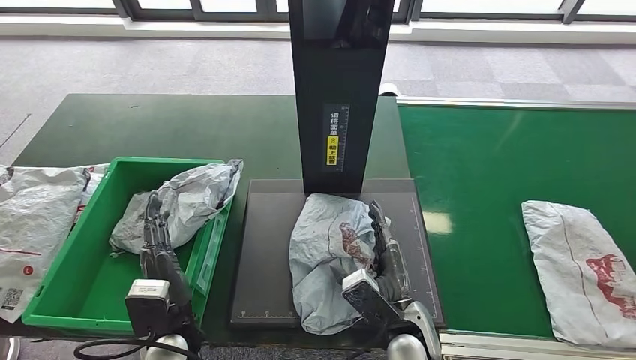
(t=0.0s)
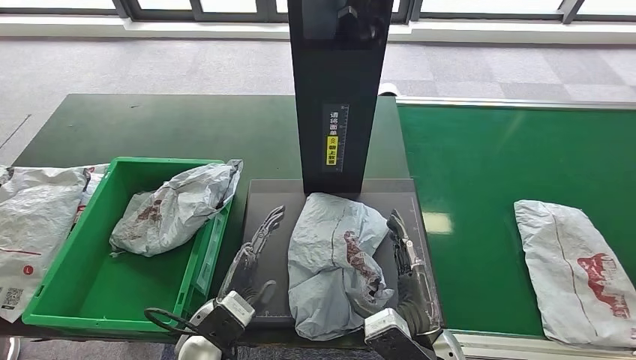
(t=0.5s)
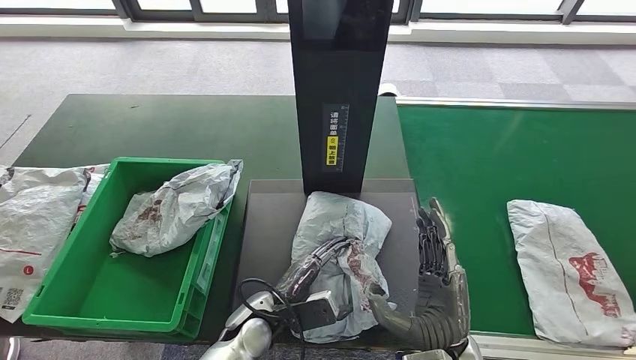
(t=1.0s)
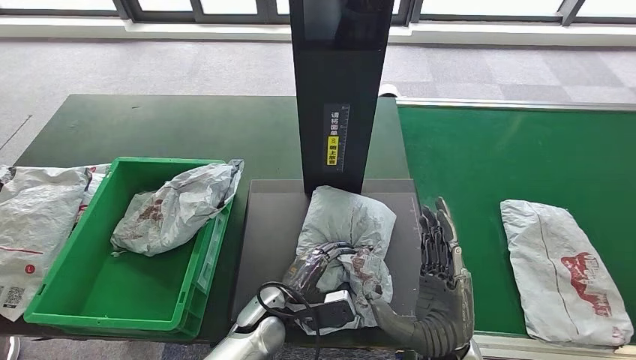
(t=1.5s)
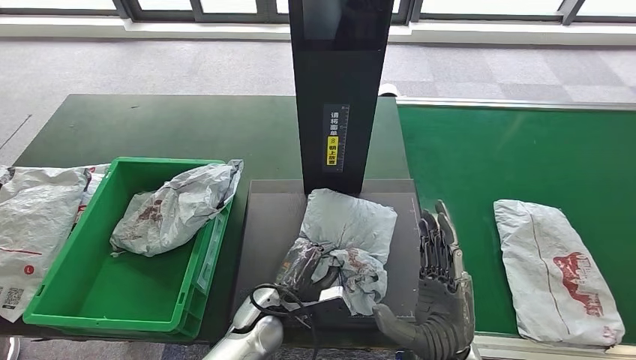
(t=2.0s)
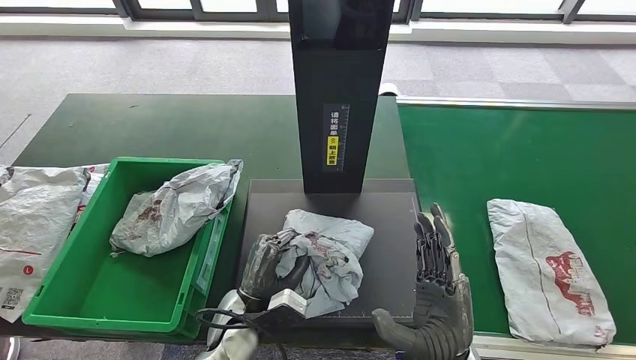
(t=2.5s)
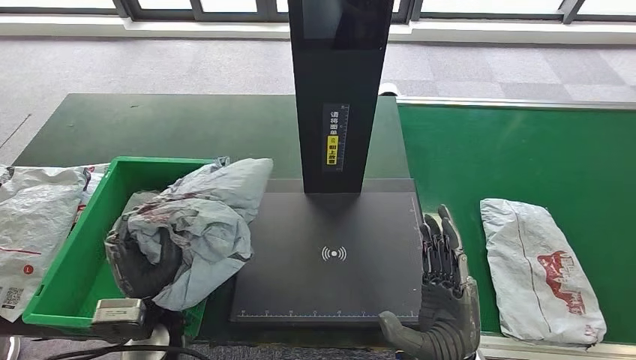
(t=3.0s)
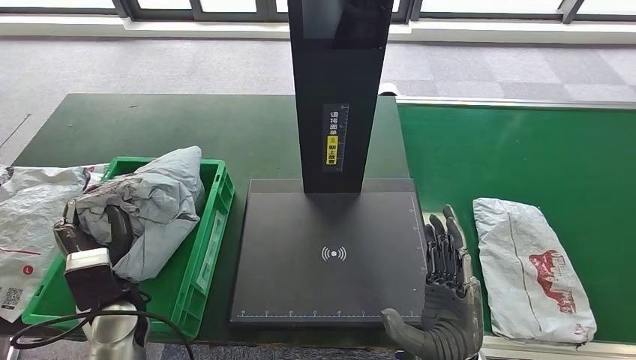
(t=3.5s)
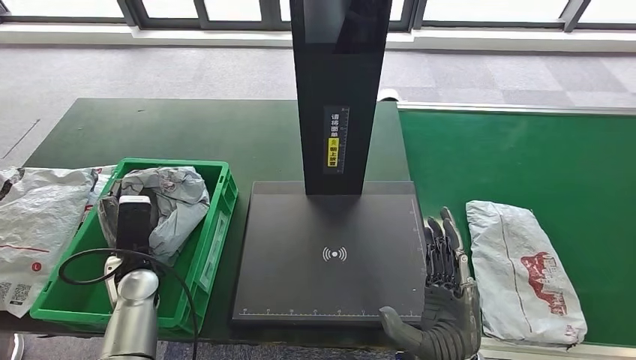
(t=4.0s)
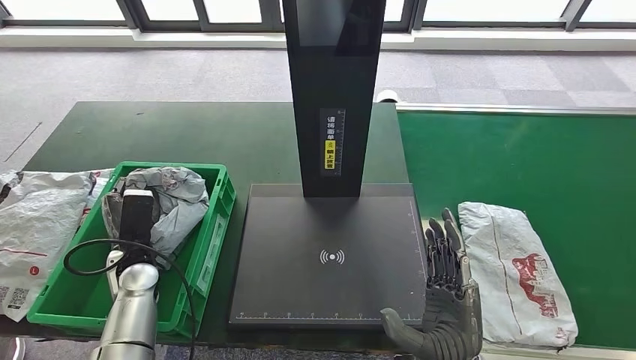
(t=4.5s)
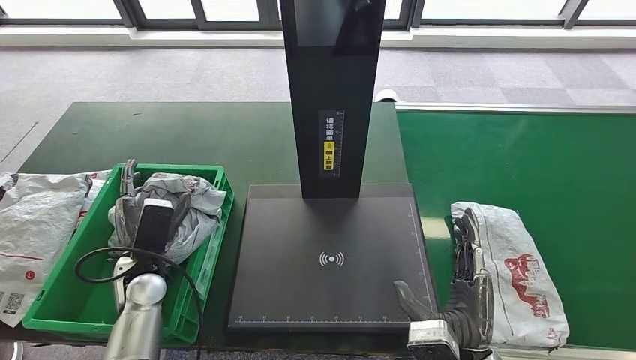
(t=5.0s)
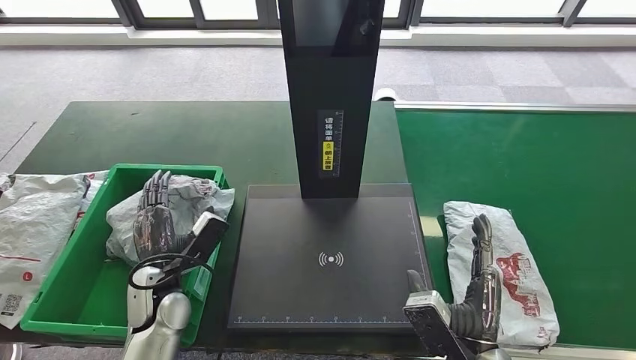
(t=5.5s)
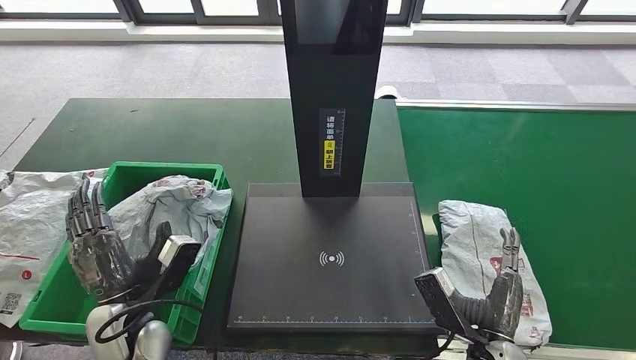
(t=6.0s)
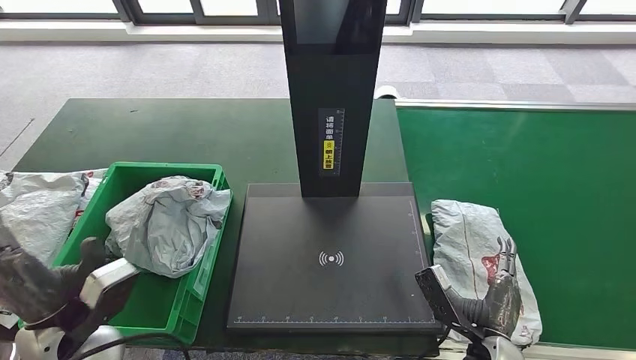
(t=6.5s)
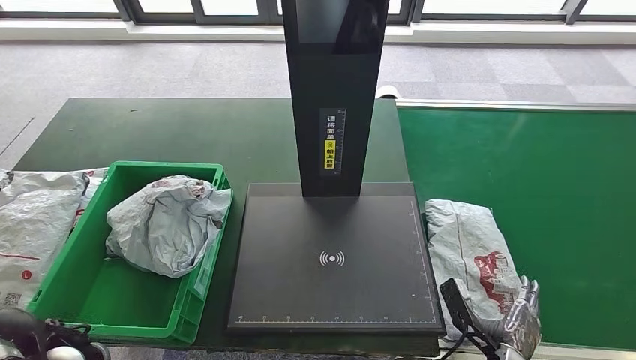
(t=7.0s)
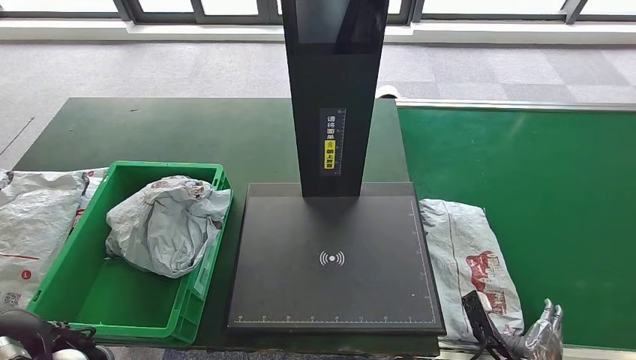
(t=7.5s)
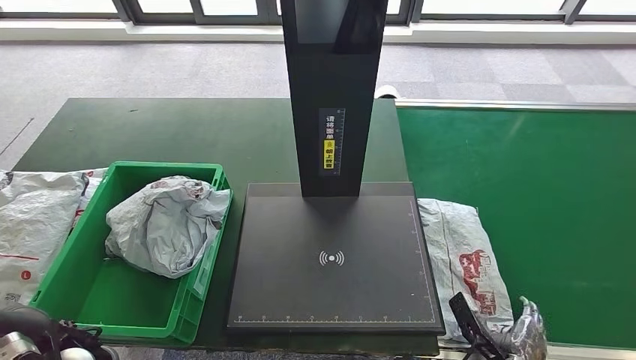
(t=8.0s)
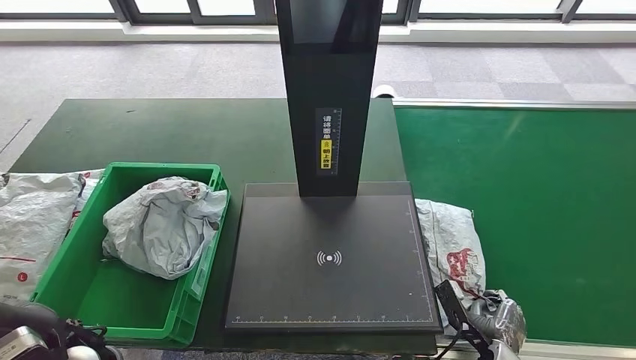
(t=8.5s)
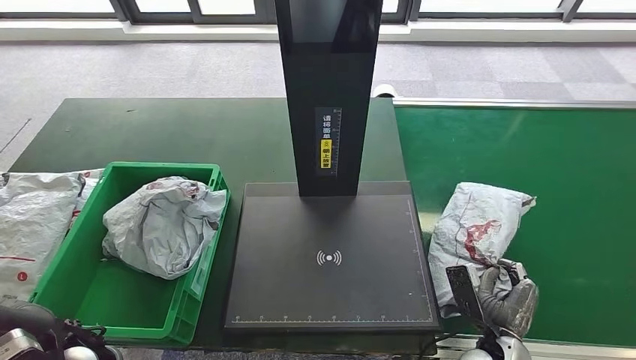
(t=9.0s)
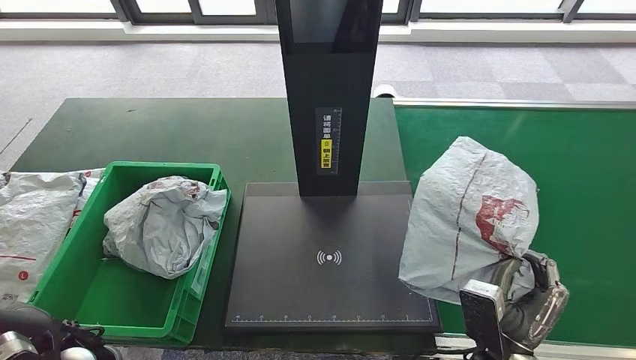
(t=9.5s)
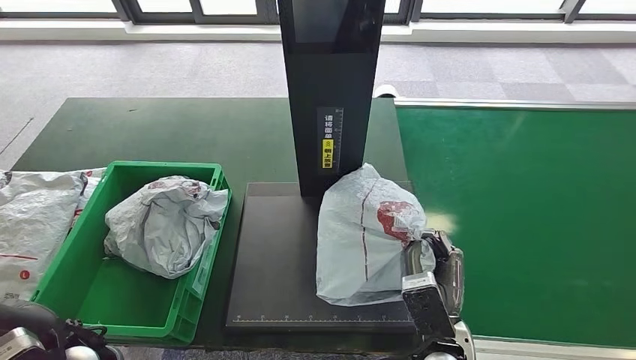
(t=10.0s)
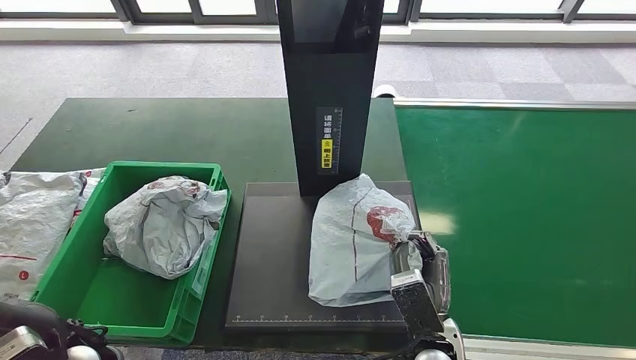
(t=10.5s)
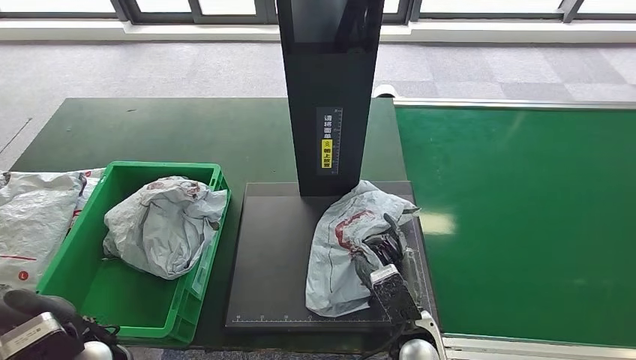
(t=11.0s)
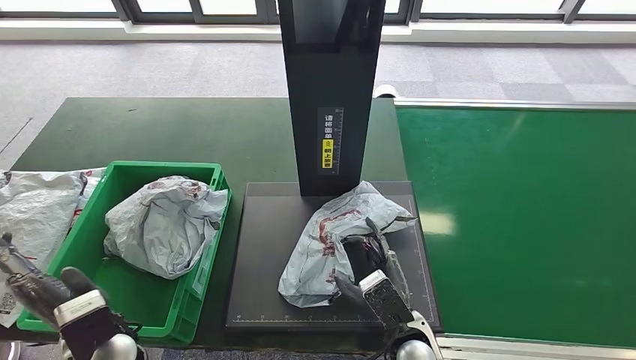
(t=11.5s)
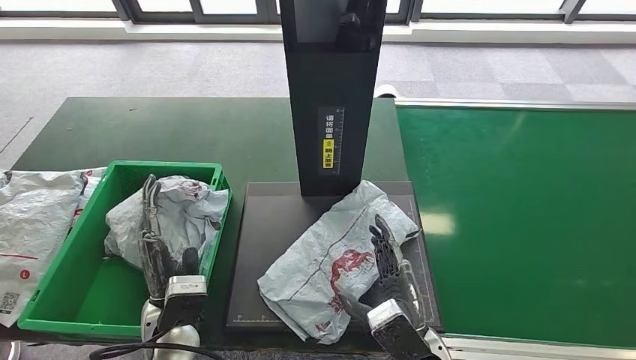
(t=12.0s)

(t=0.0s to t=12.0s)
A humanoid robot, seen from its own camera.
Step, t=0.0s - t=2.0s: Place the parcel onto the inbound machine.
Step, t=2.5s - t=3.0s: Pick up the parcel from the inbound machine.
Step, t=4.0s - t=6.5s: Place the parcel into the delivery box.
Step, t=7.0s - t=9.0s: Pick up the parcel from the conveyor belt.
t=6.0s - t=8.0s: The left hand goes about 5 cm upward; the right hand goes about 10 cm downward and to the right.
t=8.0s - t=10.0s: The right hand shifts some 20 cm to the left and upward.
t=10.0s - t=12.0s: The left hand goes approximately 10 cm to the right.

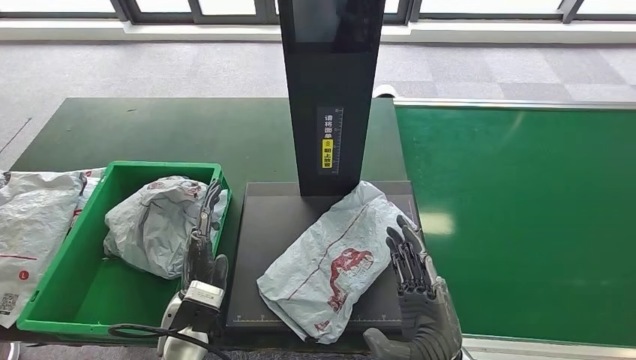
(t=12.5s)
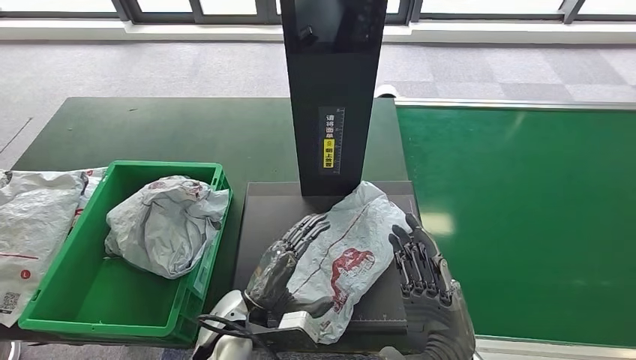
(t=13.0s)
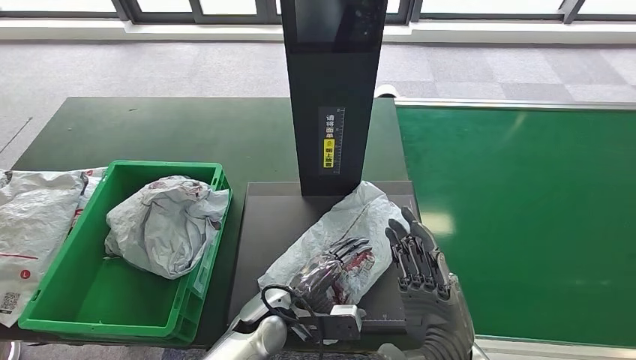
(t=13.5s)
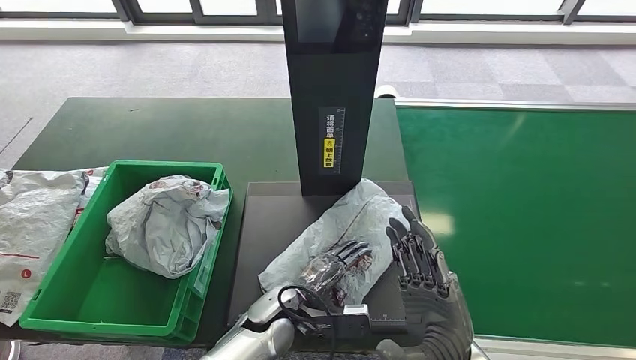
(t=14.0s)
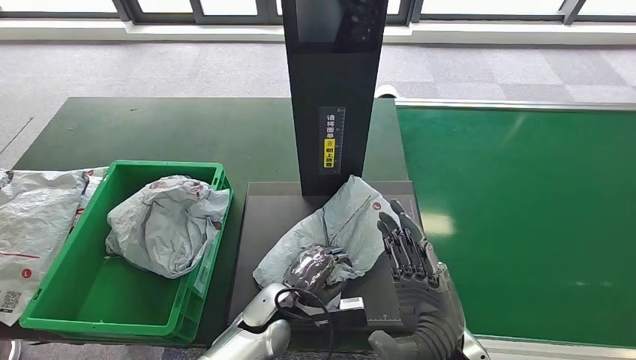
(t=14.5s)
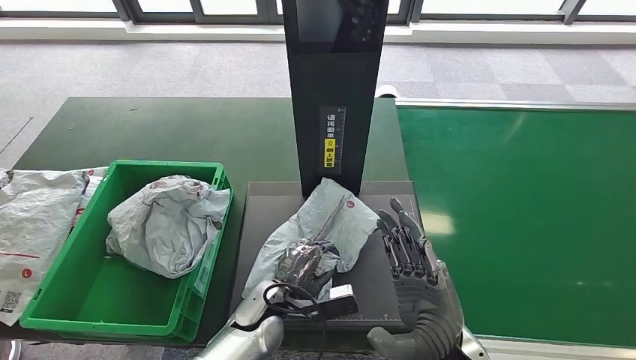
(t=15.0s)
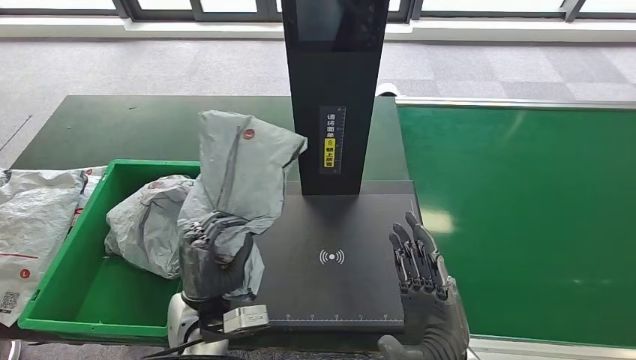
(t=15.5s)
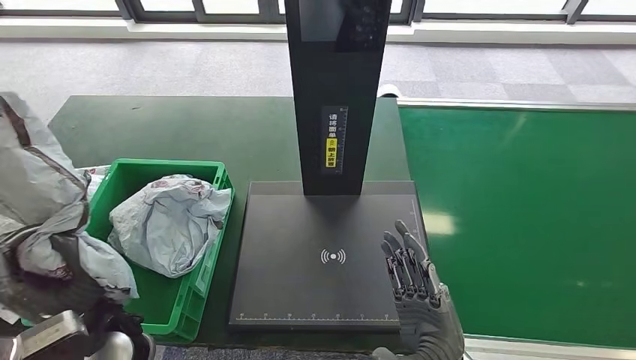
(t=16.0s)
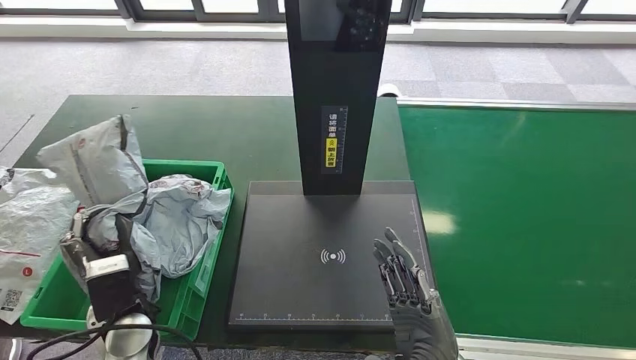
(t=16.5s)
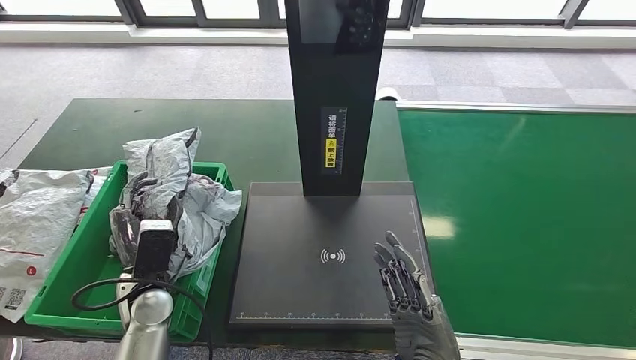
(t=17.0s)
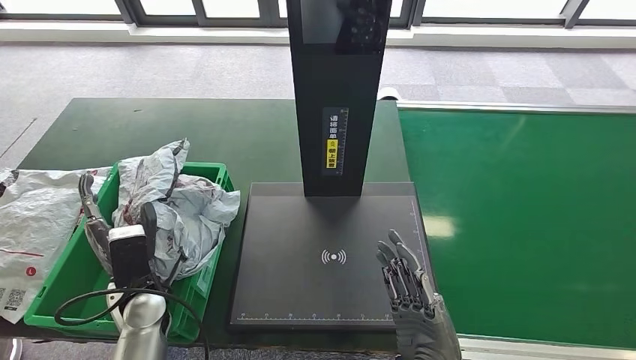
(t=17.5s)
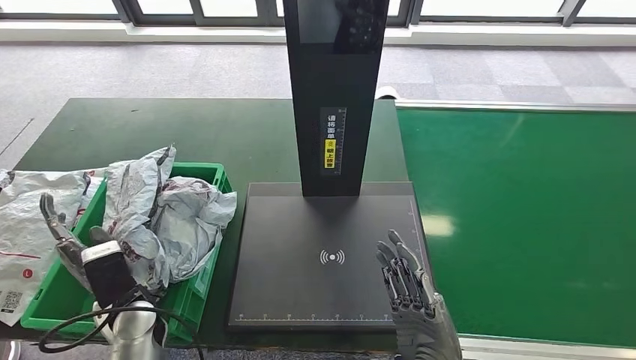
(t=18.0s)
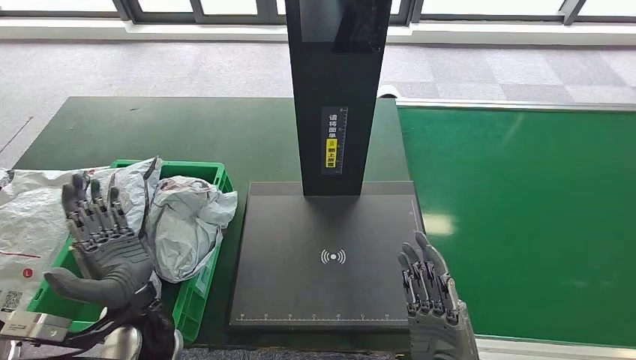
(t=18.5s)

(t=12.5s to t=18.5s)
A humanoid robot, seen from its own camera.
Step, t=13.0s - t=15.5s: Pick up the parcel from the inbound machine.
Step, t=16.0s - t=18.5s: Place the parcel into the delivery box.
t=12.5s - t=14.5s: The left hand moves to the right and downward, approximately 15 cm.
